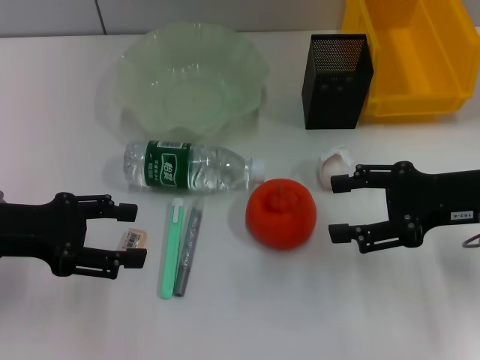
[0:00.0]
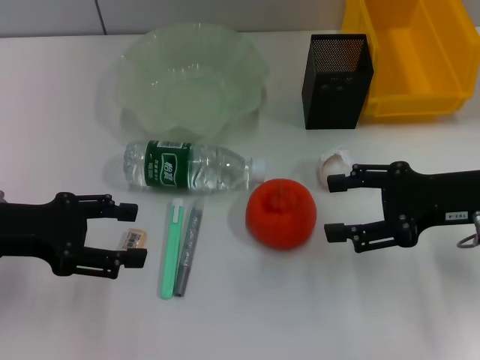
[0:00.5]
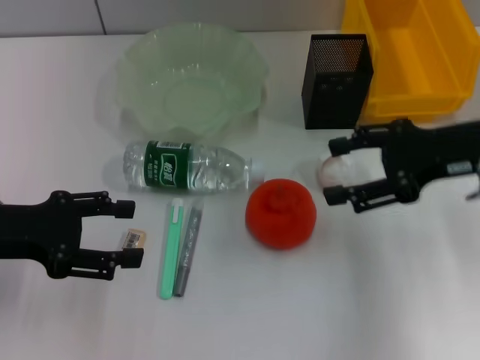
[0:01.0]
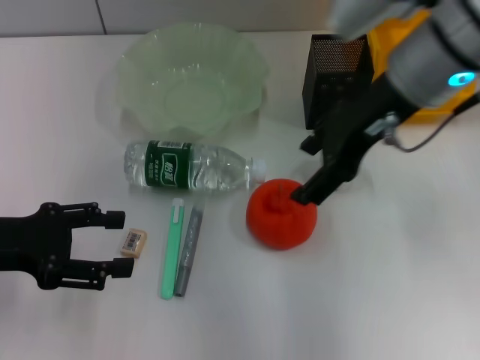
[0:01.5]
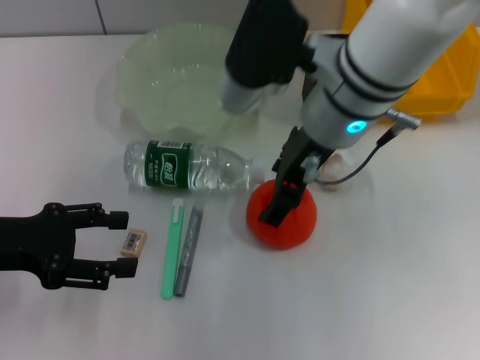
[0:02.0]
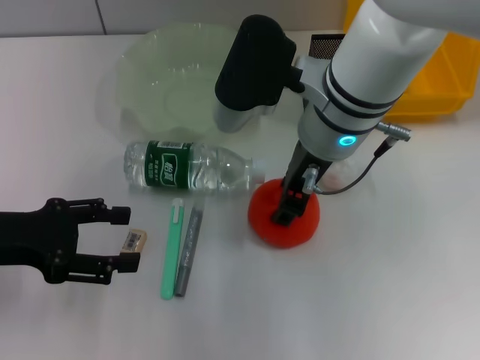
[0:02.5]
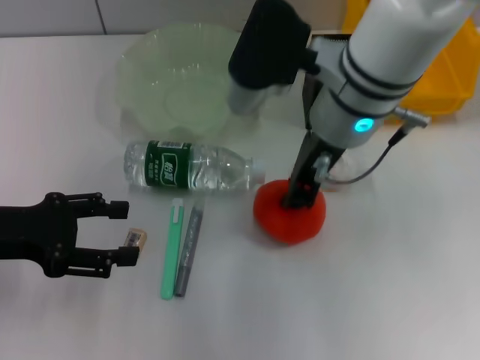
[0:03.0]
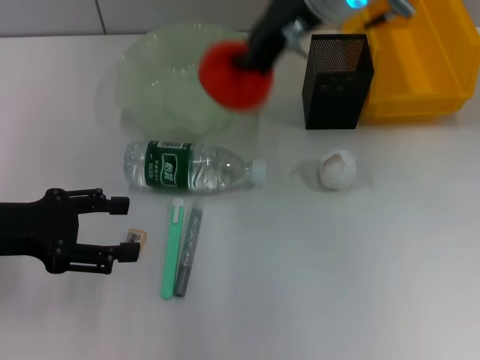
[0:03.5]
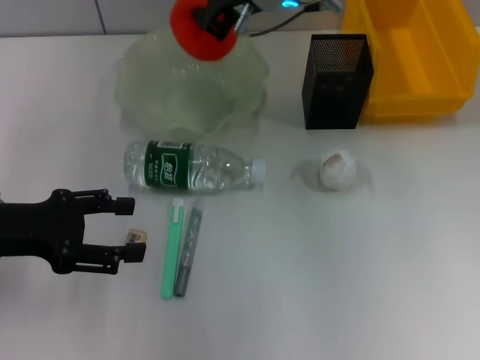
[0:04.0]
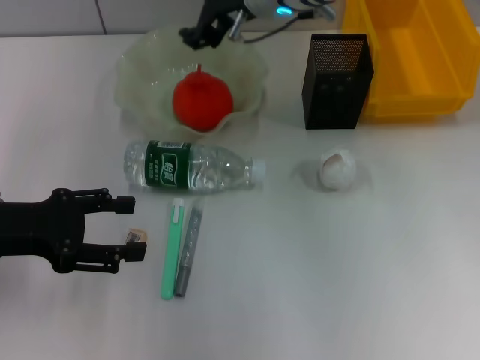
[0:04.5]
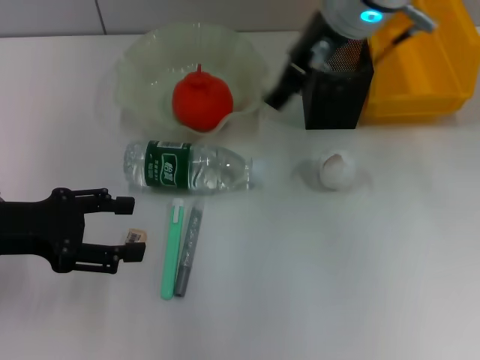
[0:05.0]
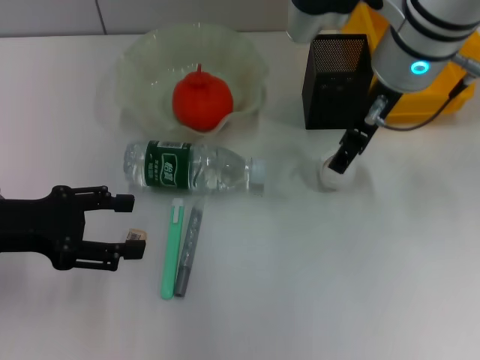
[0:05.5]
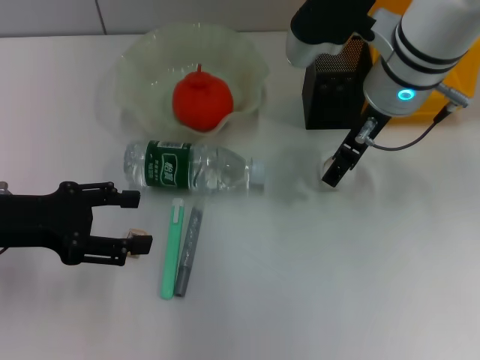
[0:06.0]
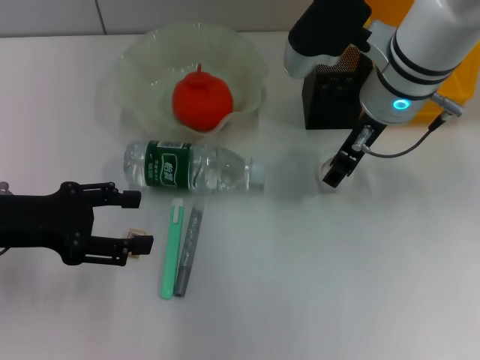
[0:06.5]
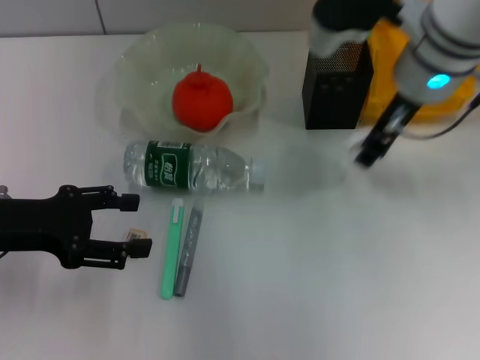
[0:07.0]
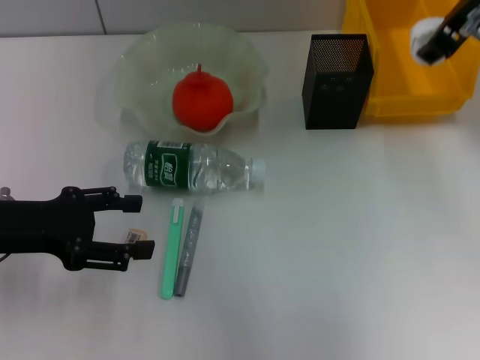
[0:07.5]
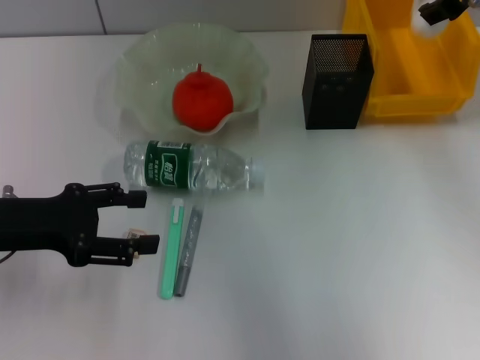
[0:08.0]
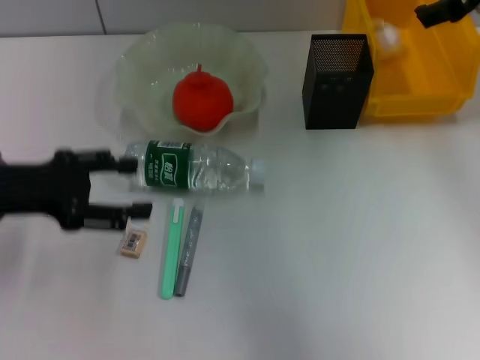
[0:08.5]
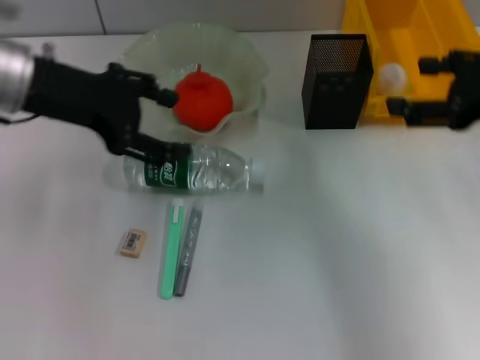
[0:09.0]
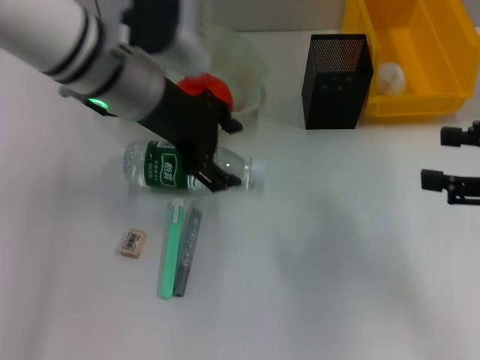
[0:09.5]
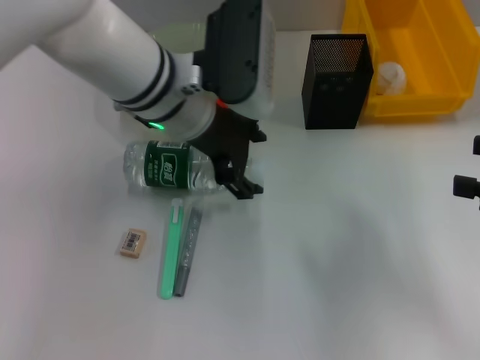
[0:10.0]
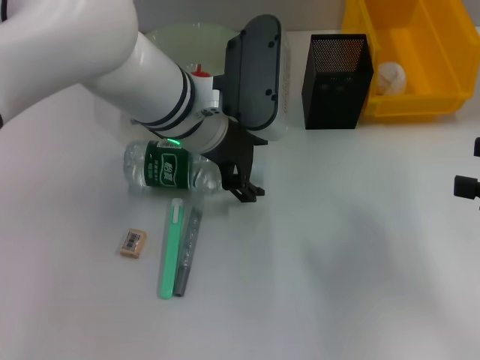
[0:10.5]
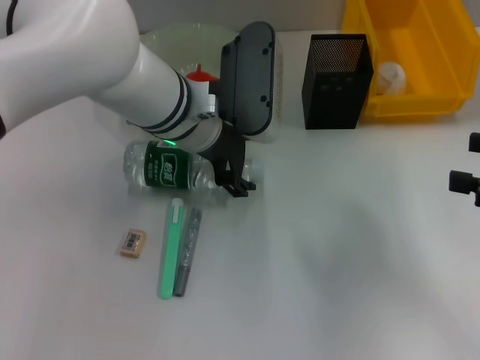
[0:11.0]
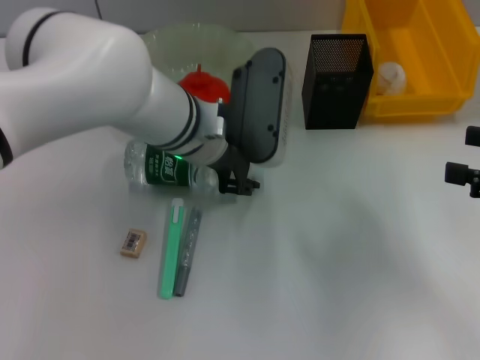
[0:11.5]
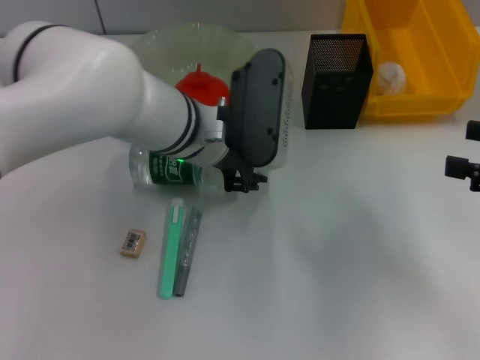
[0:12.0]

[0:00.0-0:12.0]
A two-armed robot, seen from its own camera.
Step, 0:00.0 to 0:02.5: Grab the orange with the right hand.
Step, 0:03.0 to 0:04.0: Place the orange into the fruit bowl with the right hand.
Step, 0:04.5 to 0:06.5: Grab the paper ball with the right hand.
Step, 0:07.0 to 0:08.0: Place the paper ball into the trash can with the right hand.
Step, 0:08.5 to 0:11.5: Grab the water bottle with the left hand.
0:00.0 to 0:02.0: The right gripper goes roughly 20 cm to the left and upward.
0:02.0 to 0:04.0: The right gripper is displaced forward by roughly 10 cm, and closes.
0:04.0 to 0:06.0: The right gripper shifts about 10 cm to the right, and opens up.
0:06.0 to 0:08.0: The right gripper heads to the right and upward, covering approximately 15 cm.
0:08.0 to 0:10.0: The left gripper shifts approximately 25 cm to the right and forward. The right gripper heads backward, to the right and downward, covering some 25 cm.
0:10.0 to 0:12.0: The left gripper closes up.

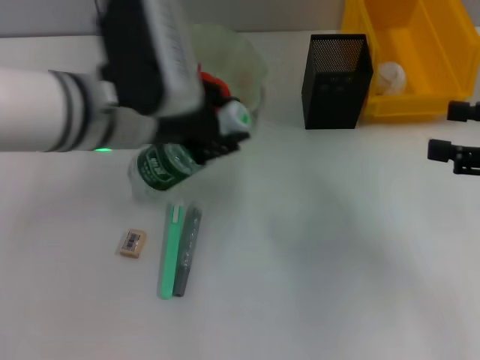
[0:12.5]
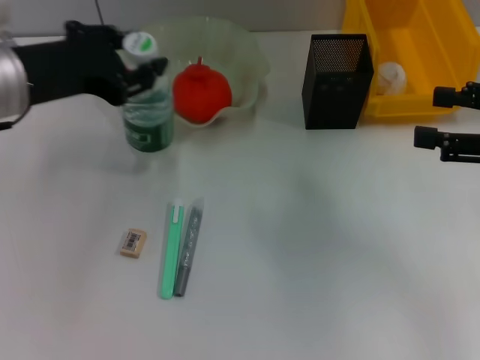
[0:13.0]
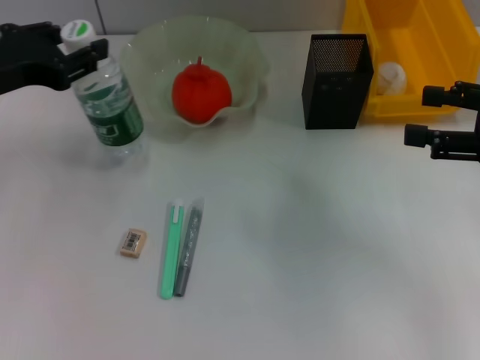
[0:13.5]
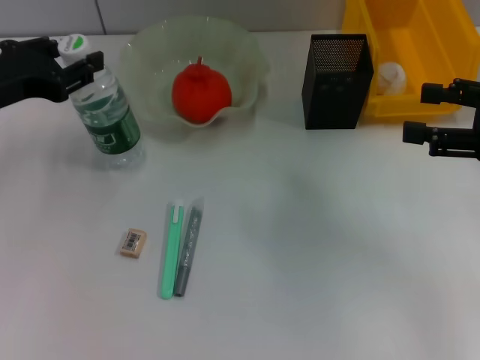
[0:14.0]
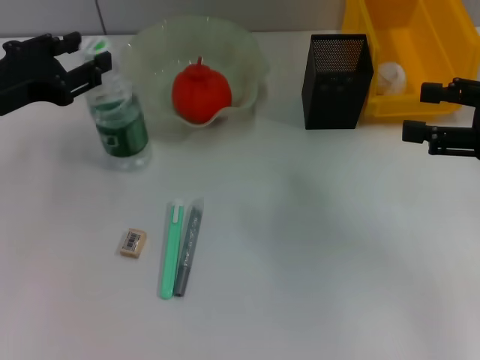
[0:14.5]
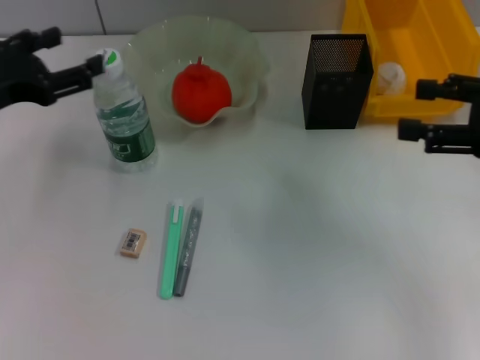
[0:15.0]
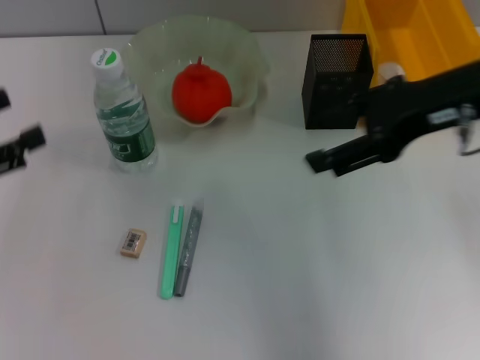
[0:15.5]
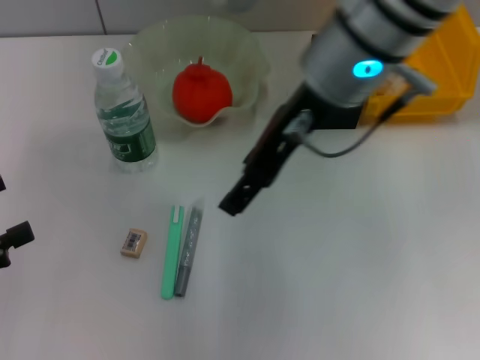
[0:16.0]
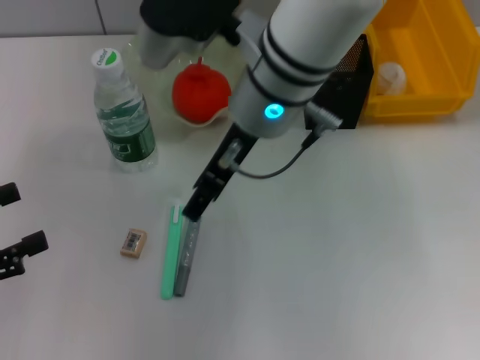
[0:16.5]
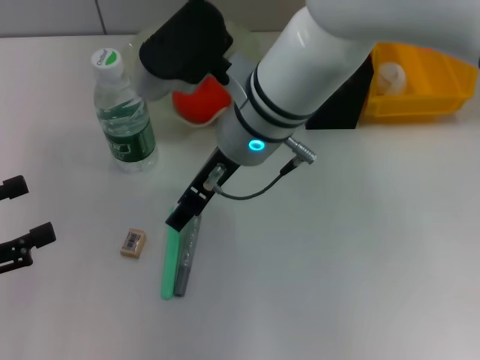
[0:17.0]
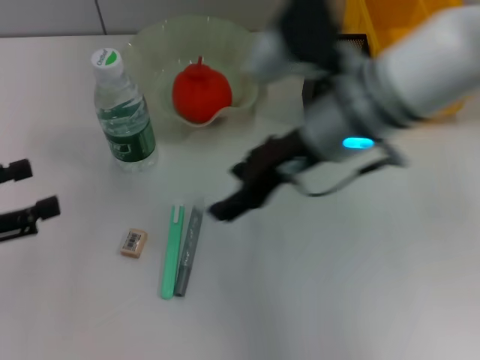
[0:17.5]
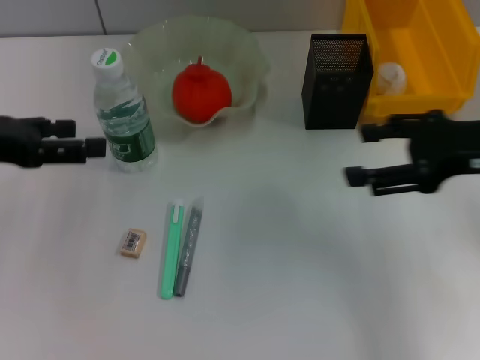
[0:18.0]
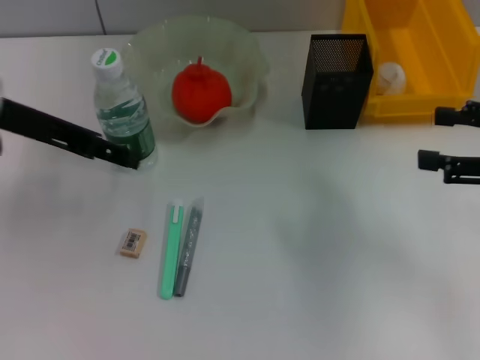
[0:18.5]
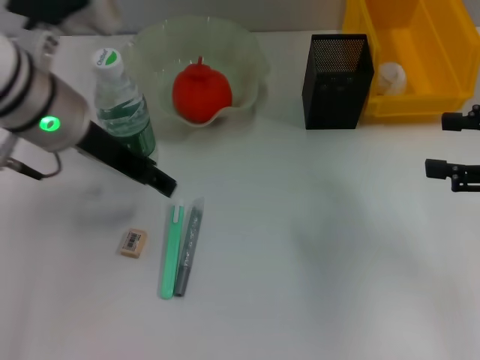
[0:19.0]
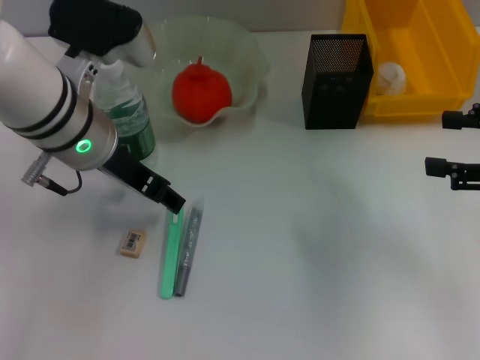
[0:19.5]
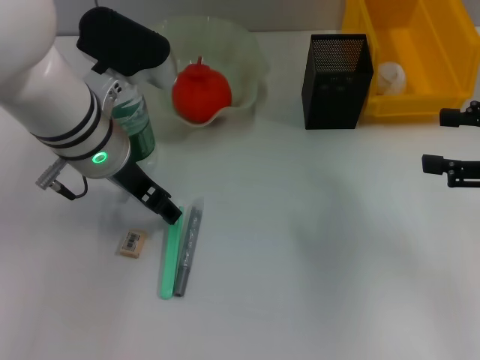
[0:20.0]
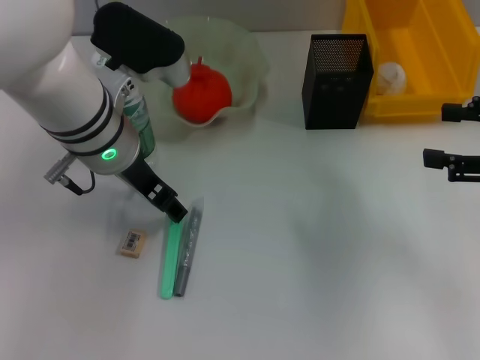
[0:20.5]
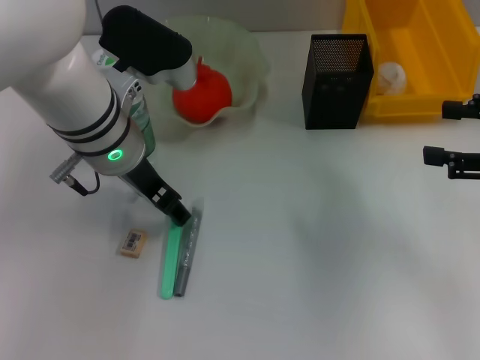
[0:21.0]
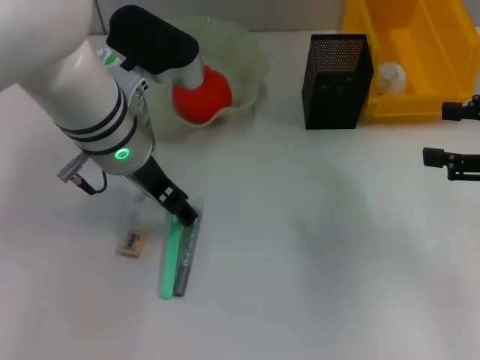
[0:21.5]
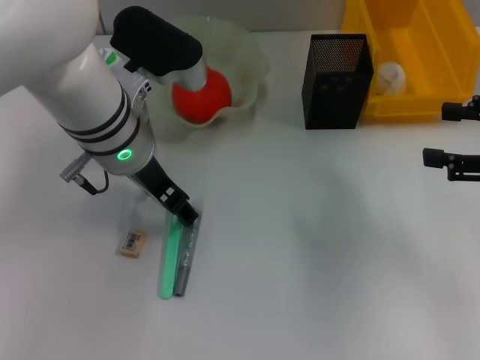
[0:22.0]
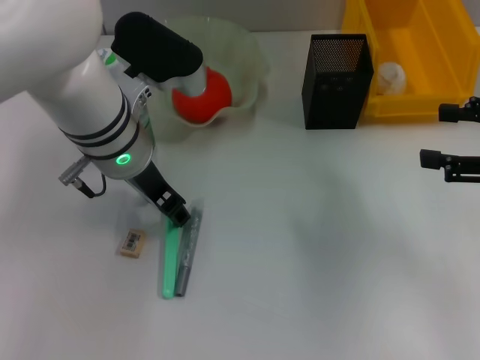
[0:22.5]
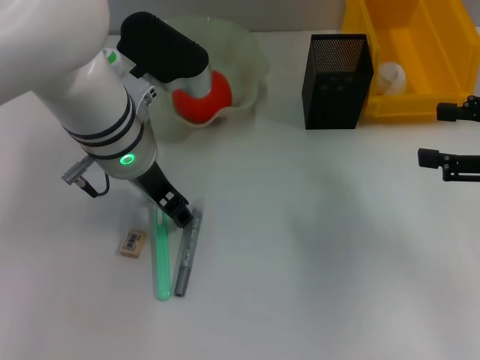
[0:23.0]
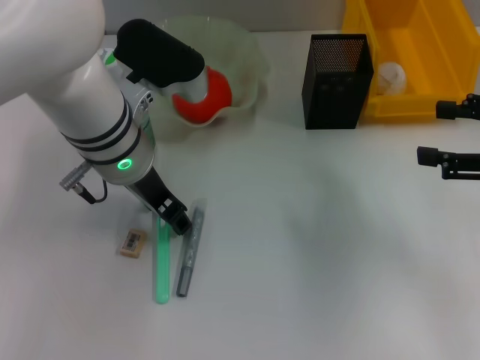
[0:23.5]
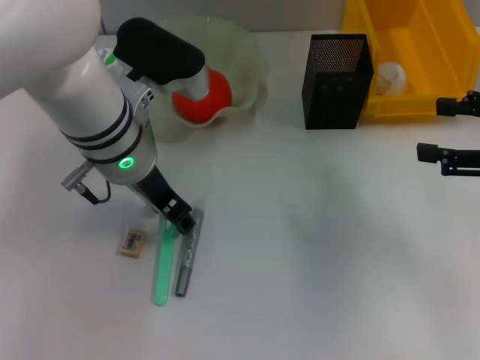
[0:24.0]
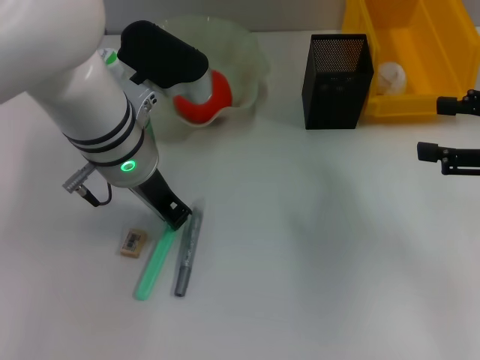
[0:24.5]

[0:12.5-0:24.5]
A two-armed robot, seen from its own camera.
Step, 0:12.5 to 0:14.5: Place the water bottle on the table with the left hand.
0:12.5 to 0:14.5: The left gripper moves to the left, about 15 cm.
0:14.5 to 0:16.5: The right gripper moves to the left, about 30 cm. The left gripper heads backward and to the left, covering some 15 cm, and opens.
0:16.5 to 0:18.5: The left gripper heads forward, to the right and upward, covering about 20 cm. Meanwhile the right gripper goes some 35 cm to the right.
0:18.5 to 0:20.5: The left gripper heads to the right and downward, covering approximately 10 cm.
0:20.5 to 0:22.5: The two grippers keep their place.
0:22.5 to 0:24.5: The left gripper closes its fingers.

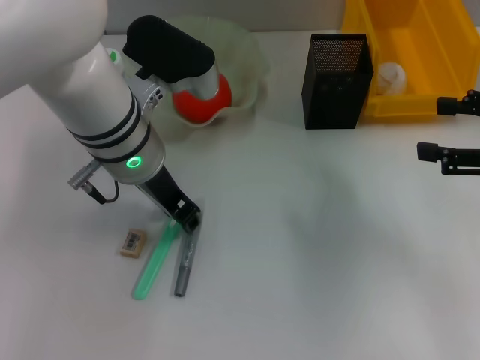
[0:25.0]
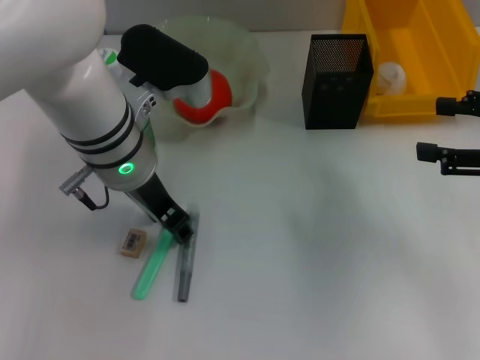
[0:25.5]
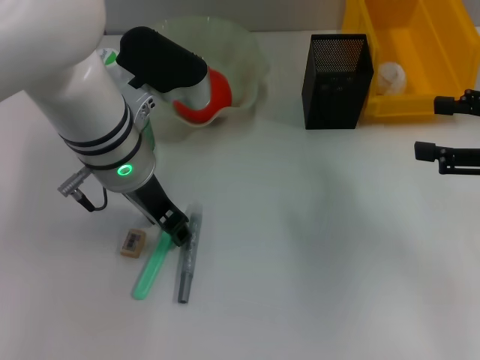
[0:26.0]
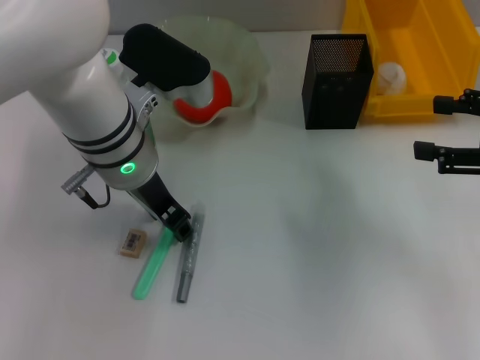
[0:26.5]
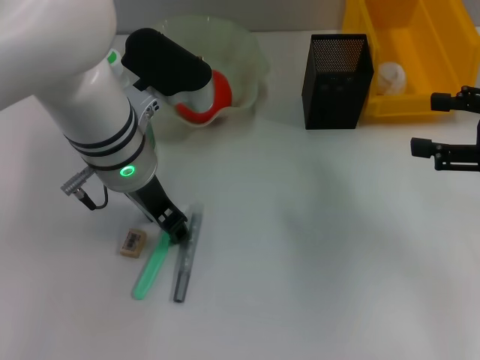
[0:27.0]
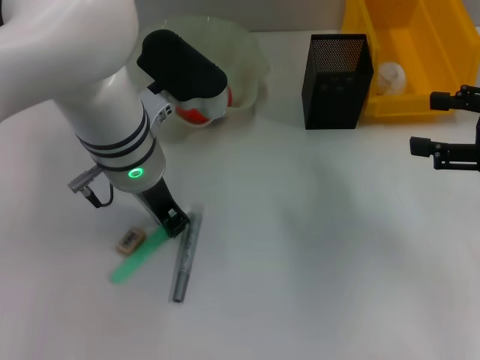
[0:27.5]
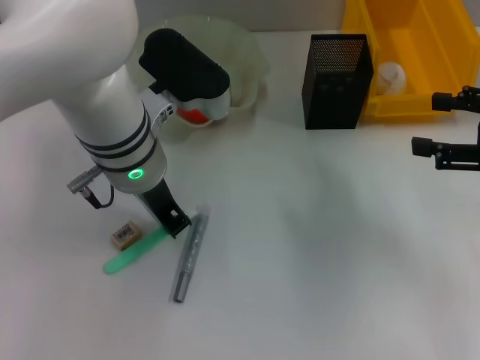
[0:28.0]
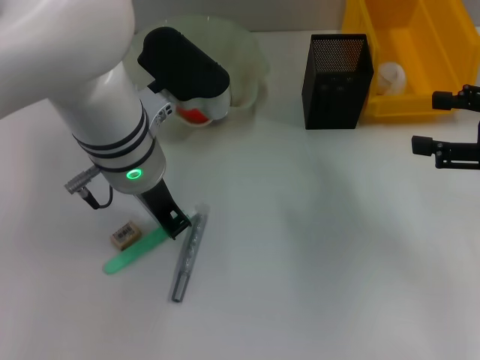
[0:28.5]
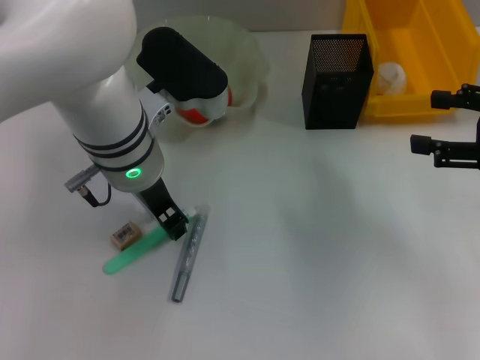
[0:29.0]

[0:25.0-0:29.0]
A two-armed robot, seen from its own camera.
0:25.0 to 0:27.0: The two grippers keep their place.
0:27.0 to 0:29.0: The left gripper closes, then reopens.
